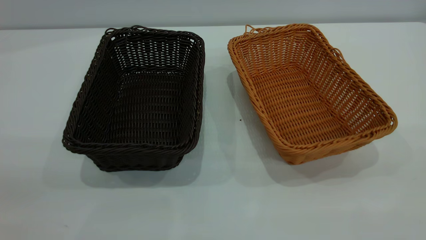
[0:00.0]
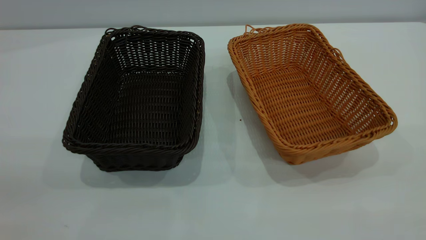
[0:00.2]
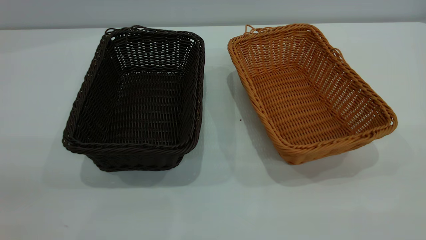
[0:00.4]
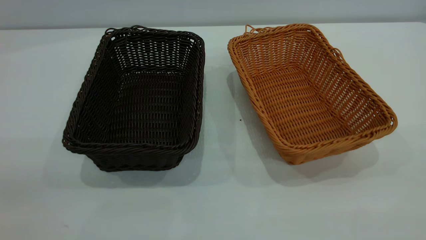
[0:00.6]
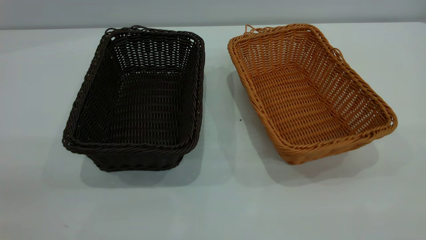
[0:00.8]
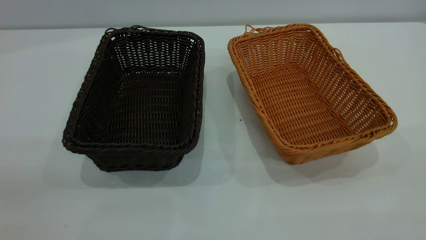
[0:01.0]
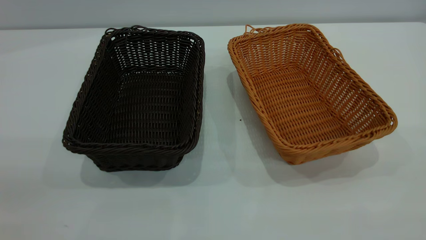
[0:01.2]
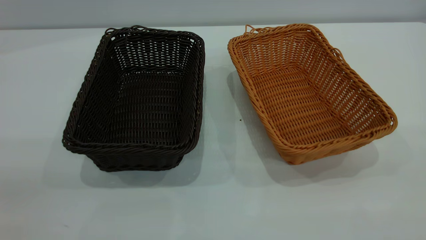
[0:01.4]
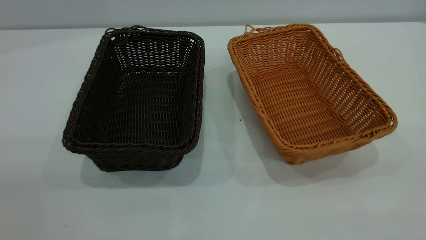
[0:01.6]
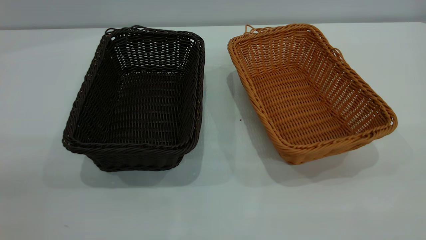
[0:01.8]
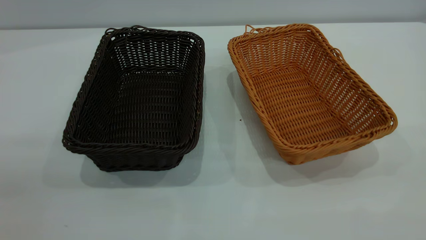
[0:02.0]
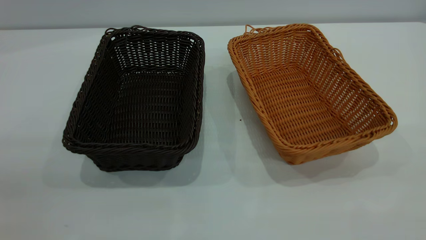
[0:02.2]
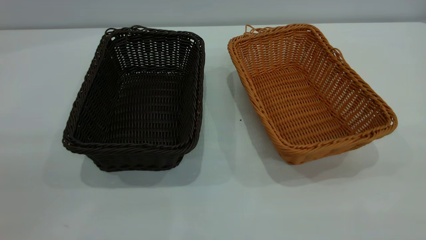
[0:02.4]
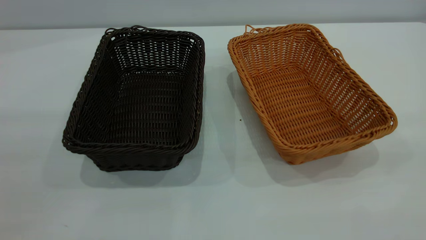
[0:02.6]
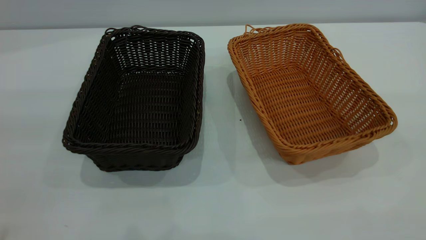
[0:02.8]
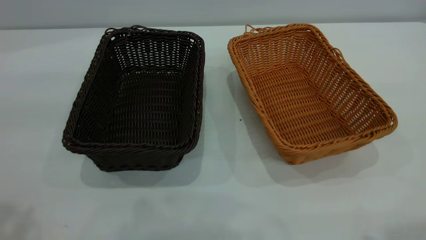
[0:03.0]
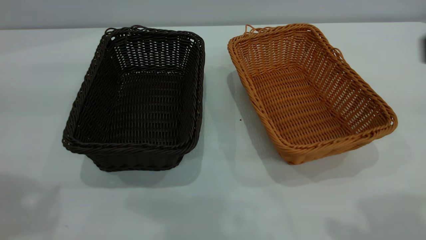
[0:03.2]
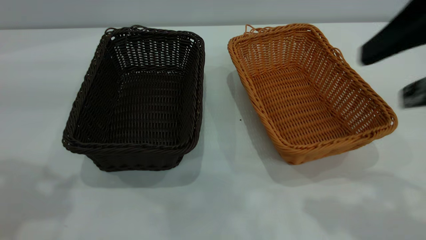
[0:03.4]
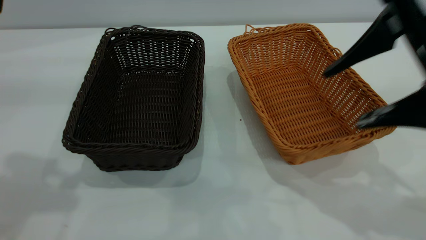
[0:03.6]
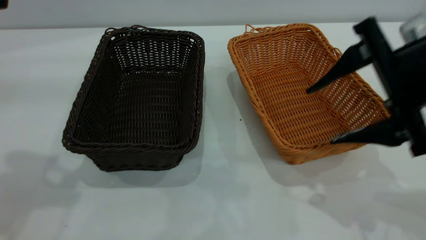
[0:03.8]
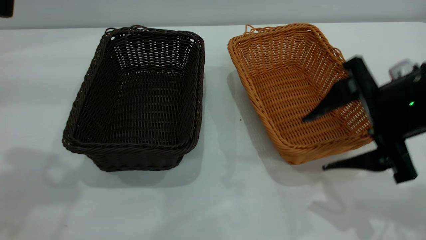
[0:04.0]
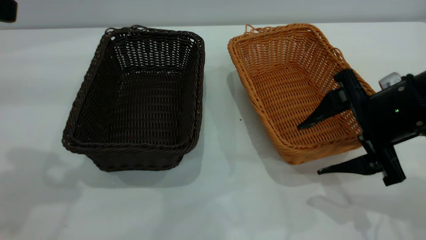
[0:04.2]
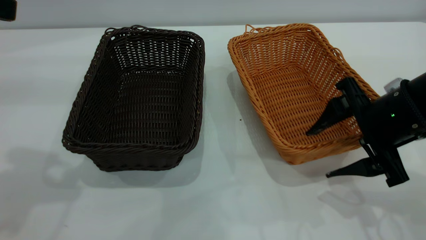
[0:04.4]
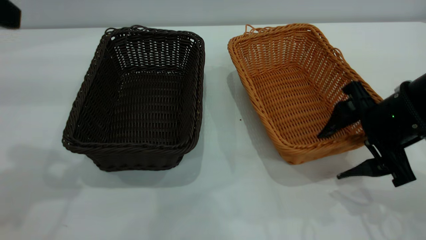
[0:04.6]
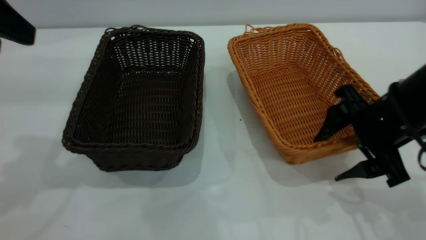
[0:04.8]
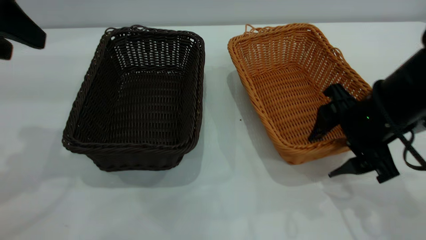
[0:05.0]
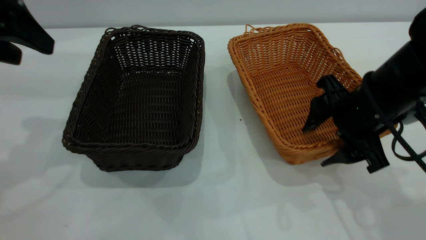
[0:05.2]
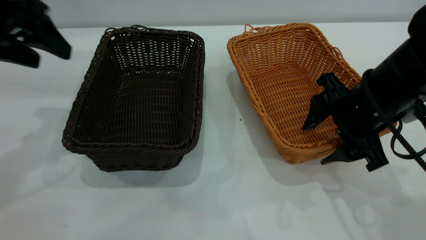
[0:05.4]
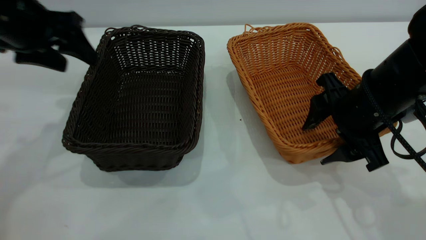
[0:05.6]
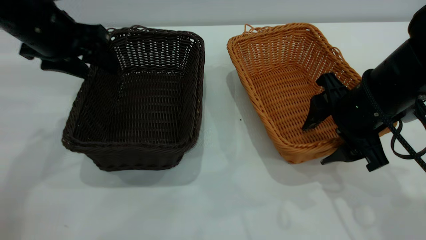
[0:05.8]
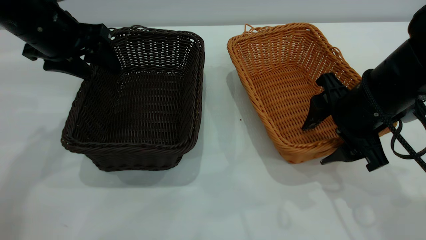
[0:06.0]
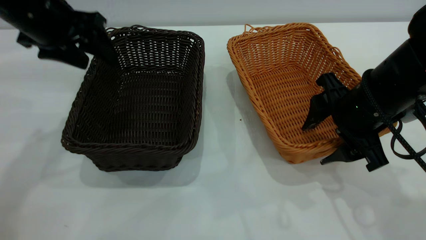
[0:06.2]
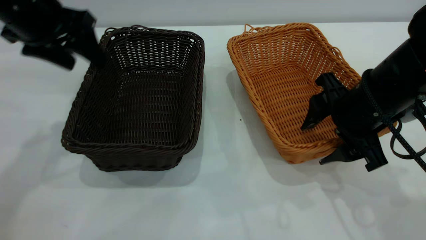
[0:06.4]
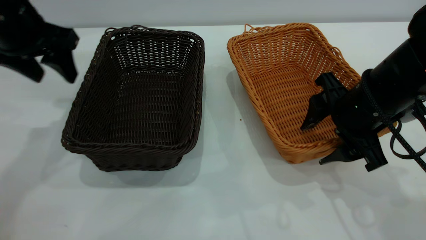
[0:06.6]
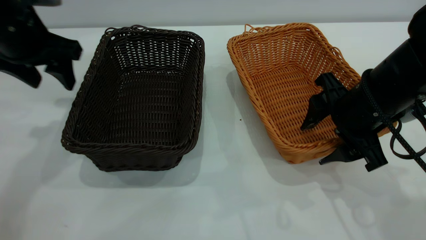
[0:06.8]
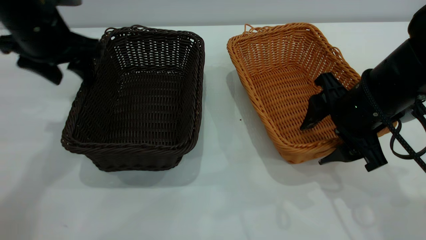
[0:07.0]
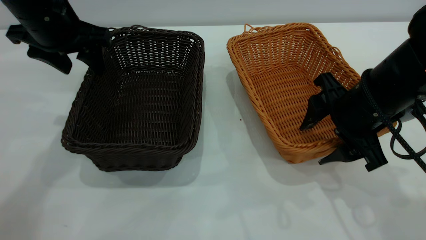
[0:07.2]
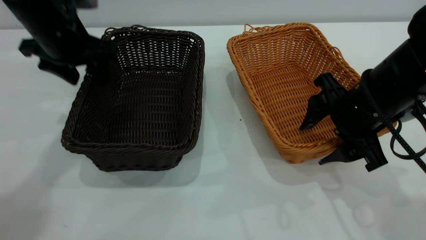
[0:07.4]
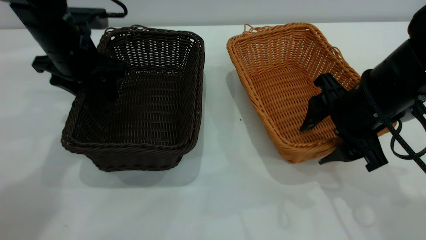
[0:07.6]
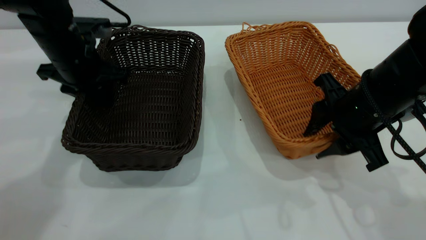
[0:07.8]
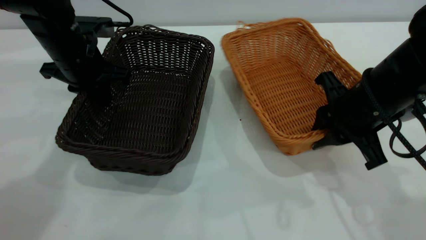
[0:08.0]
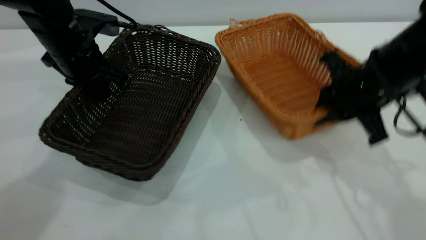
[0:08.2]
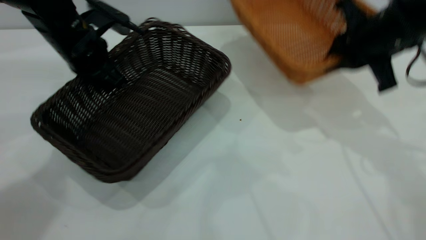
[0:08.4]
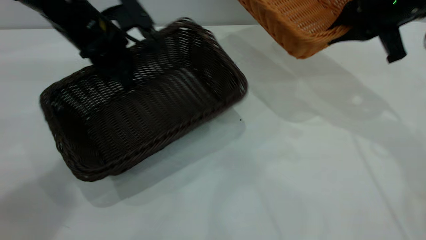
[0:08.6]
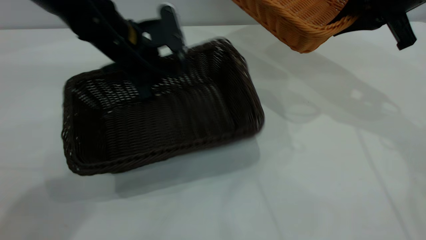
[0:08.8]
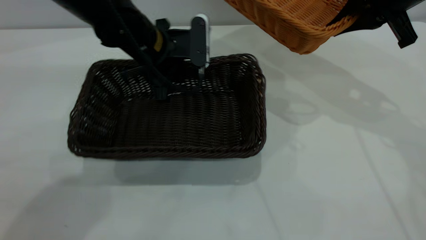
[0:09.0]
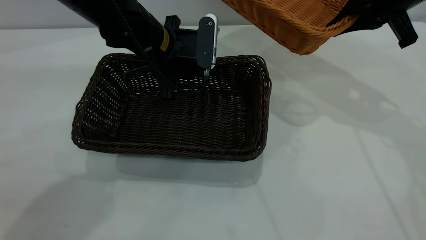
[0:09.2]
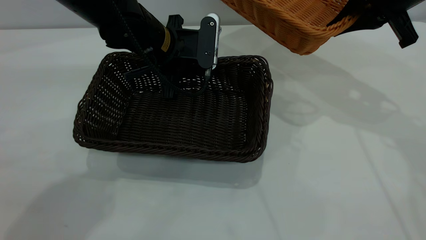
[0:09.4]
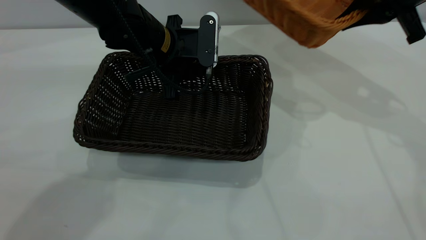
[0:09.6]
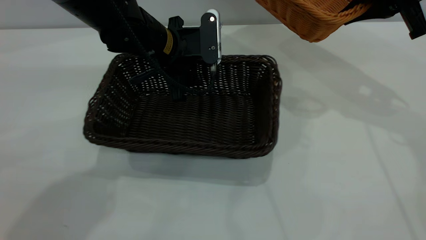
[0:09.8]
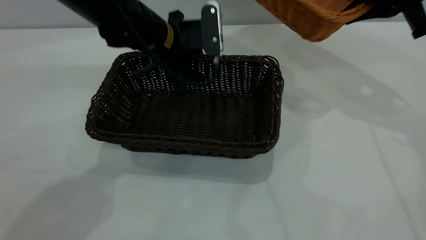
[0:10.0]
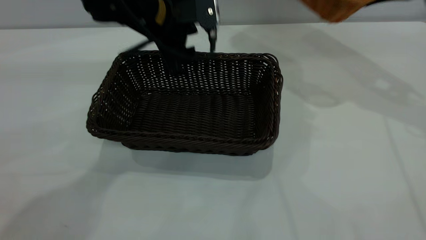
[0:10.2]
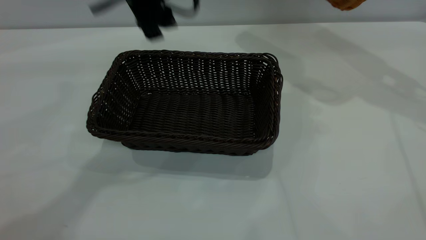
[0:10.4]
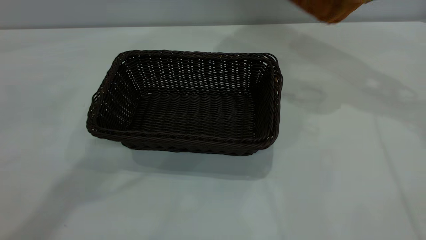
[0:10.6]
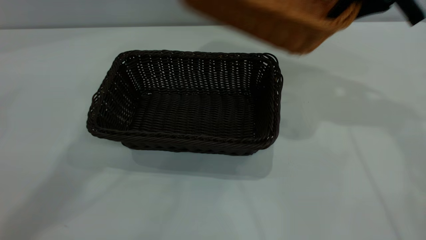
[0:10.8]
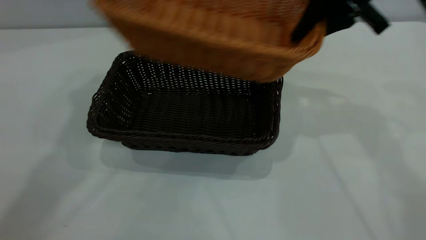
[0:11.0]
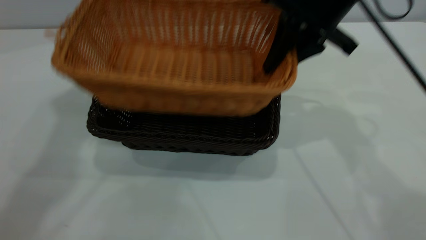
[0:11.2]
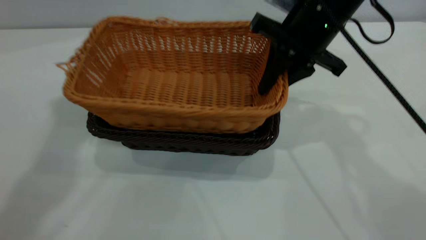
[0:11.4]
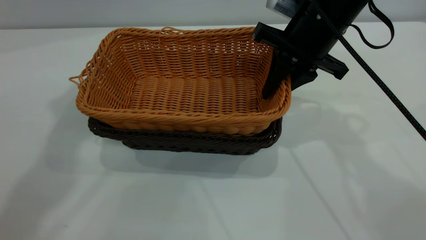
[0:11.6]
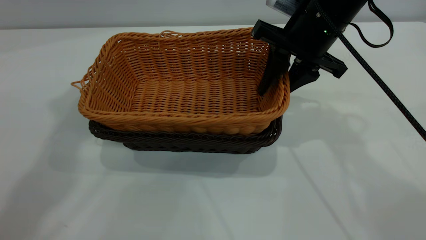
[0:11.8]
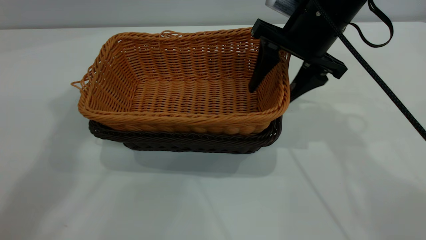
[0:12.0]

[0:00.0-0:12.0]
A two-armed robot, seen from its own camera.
Task of the whole recording: the left gripper grasp the black basket and place it in the center of the table, the right gripper grasp the brown basket and place it inside the black one.
Step, 0:00.0 to 0:08.2: Pick up the light basket with the right gripper.
Step, 0:08.4 to 0:10.2: Move the dark basket to the center of view.
0:00.0 to 0:01.6: Neither gripper changes place.
0:03.0 to 0:04.4: The right gripper shifts approximately 25 cm downward and forward, while the left gripper travels forward and downward by some 10 cm.
0:04.4 to 0:06.0: The left gripper goes about 20 cm forward and downward.
0:06.0 to 0:07.6: The left gripper changes place by about 5 cm.
0:07.6 to 0:09.0: The right gripper moves forward, upward and to the right, about 15 cm, and closes, while the left gripper heads to the right, covering some 10 cm, and closes.
0:09.0 to 0:10.4: The right gripper is displaced to the right by some 5 cm, while the left gripper shifts some 15 cm upward, and opens up.
0:10.4 to 0:12.0: The left gripper goes about 25 cm upward and to the left; the right gripper travels to the left and downward by some 20 cm, and opens up.

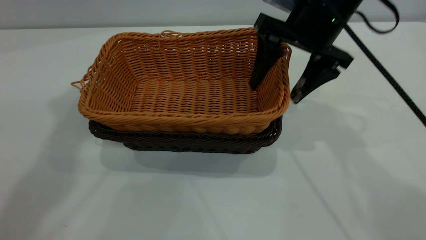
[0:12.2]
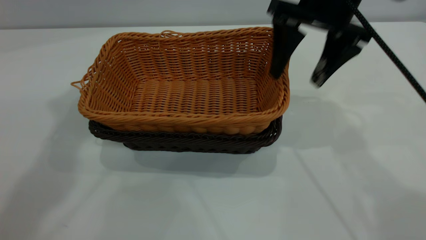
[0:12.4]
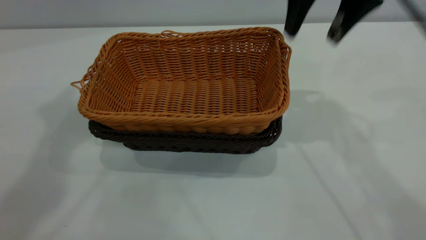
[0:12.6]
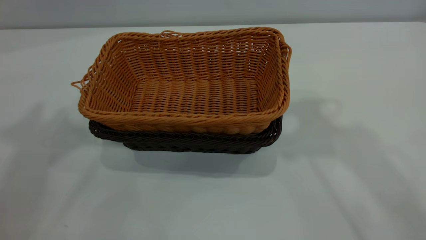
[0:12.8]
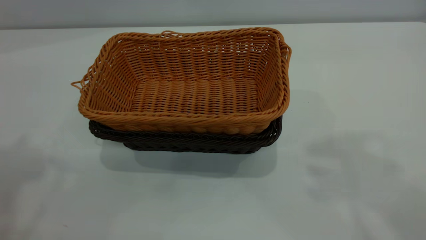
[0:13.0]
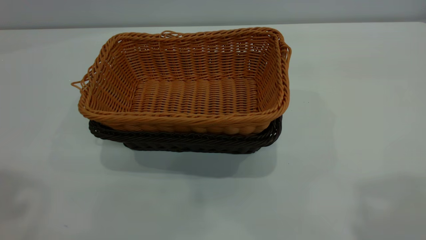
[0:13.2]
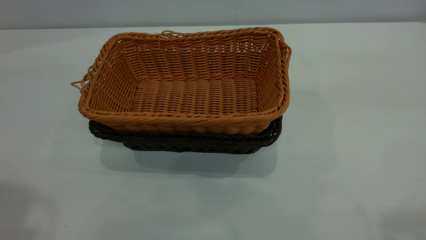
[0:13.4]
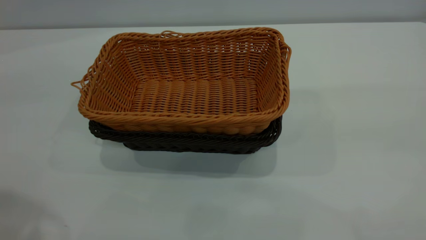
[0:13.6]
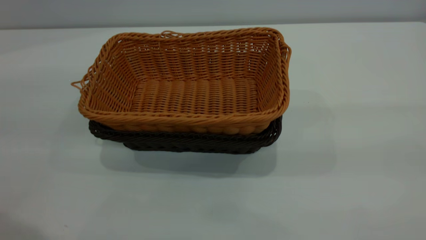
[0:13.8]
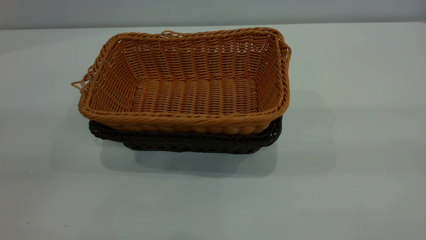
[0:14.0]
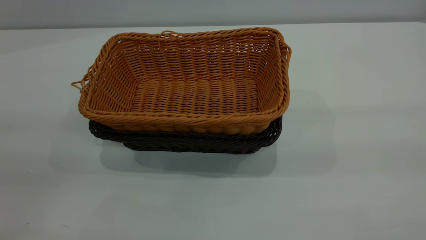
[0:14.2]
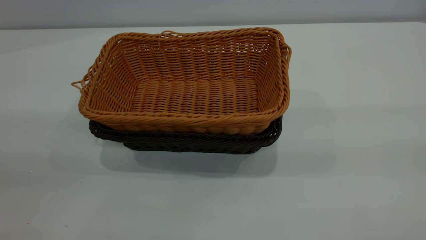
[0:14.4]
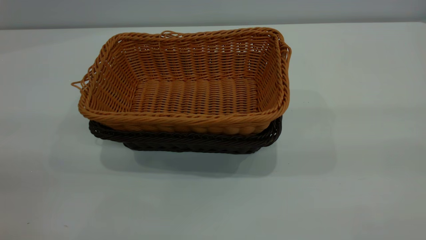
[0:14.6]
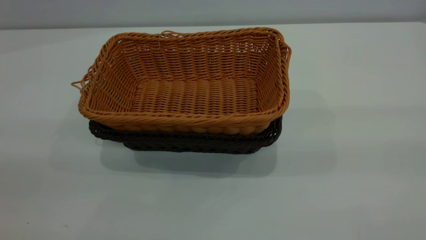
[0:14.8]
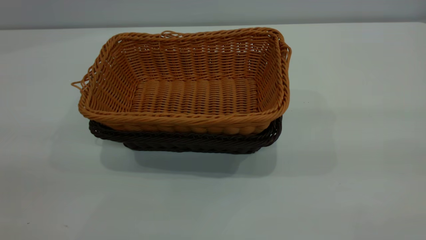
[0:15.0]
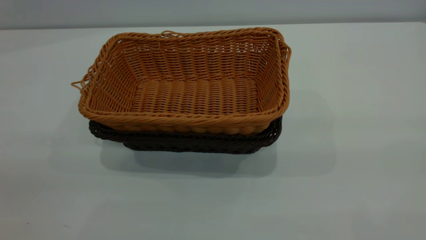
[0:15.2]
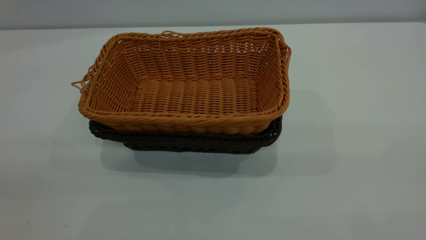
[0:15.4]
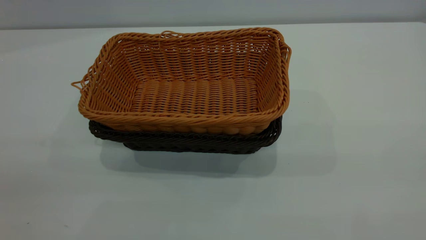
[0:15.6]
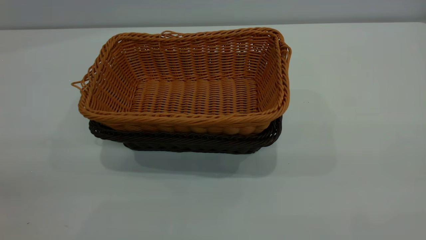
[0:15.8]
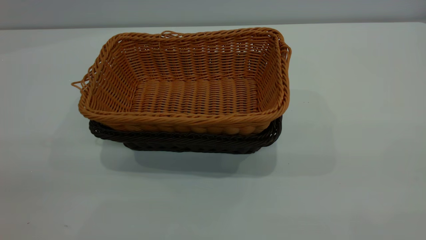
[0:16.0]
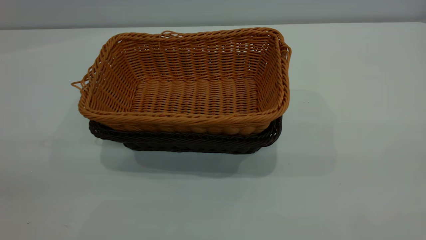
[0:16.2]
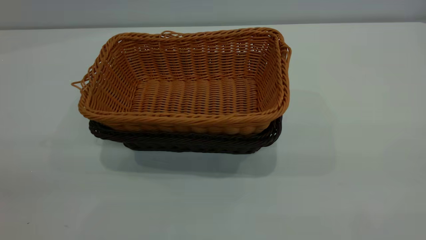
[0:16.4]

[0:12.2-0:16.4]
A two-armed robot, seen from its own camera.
Task of the whole recording: the left gripper grasp the black basket and place it in the center of the table, the right gripper grasp the brown basket and place it inside the black one.
0:12.2 to 0:13.6: The right gripper travels backward, upward and to the right by about 35 cm. The left gripper moves backward, about 20 cm.
